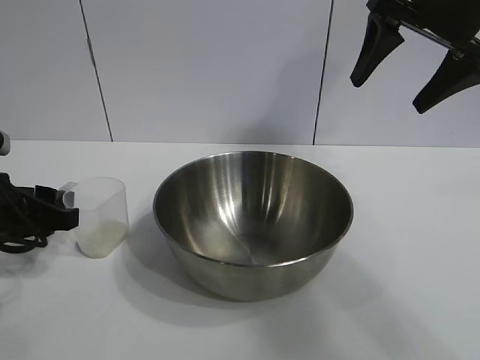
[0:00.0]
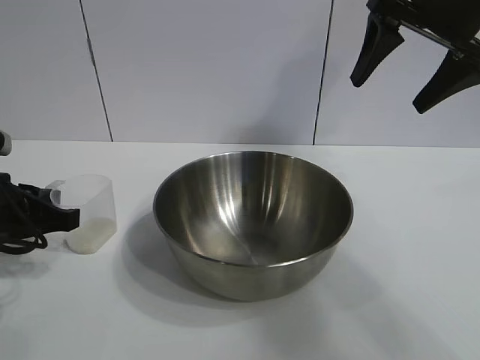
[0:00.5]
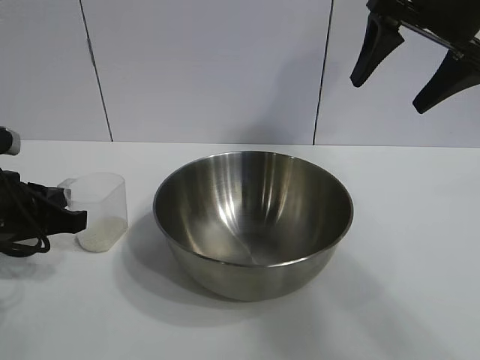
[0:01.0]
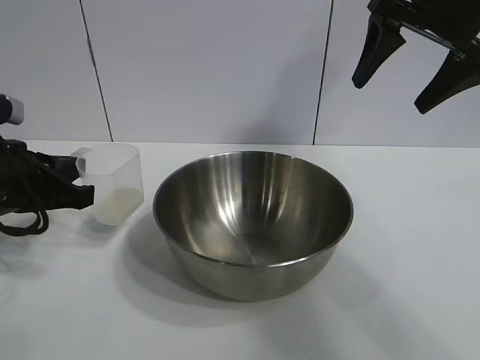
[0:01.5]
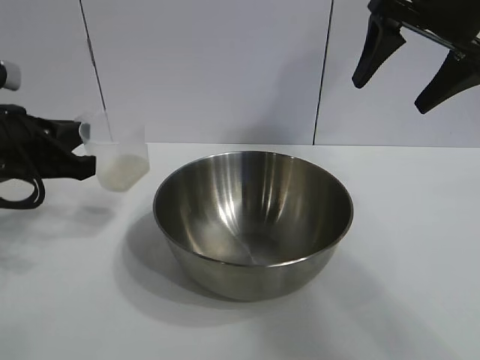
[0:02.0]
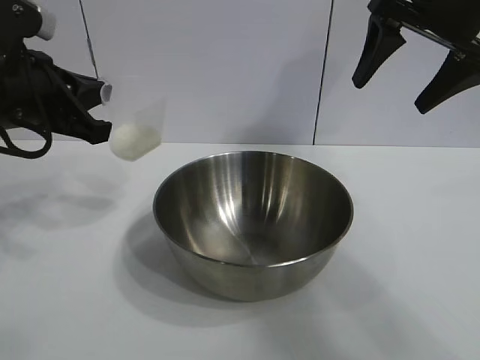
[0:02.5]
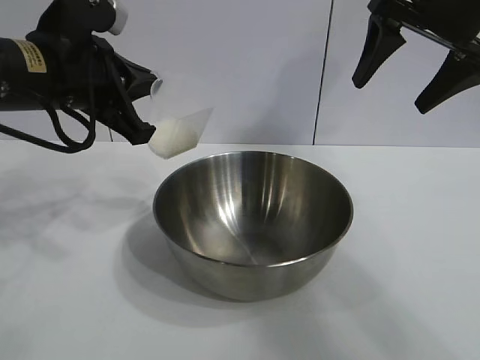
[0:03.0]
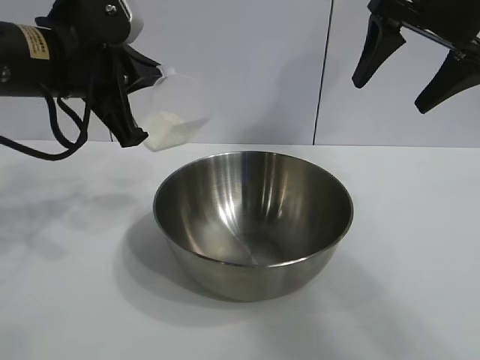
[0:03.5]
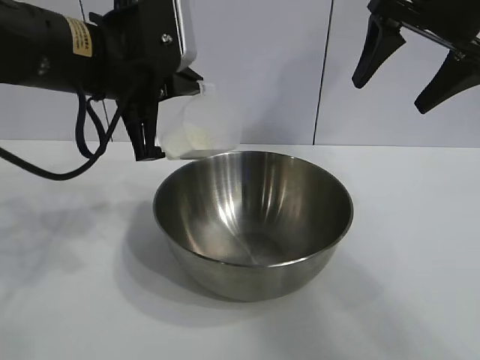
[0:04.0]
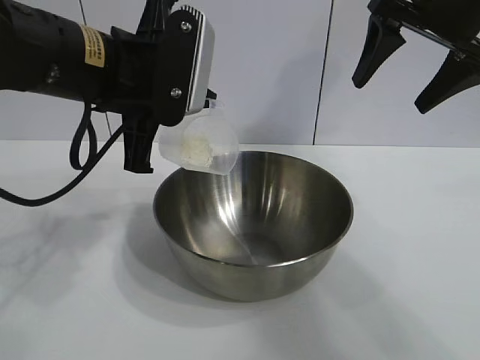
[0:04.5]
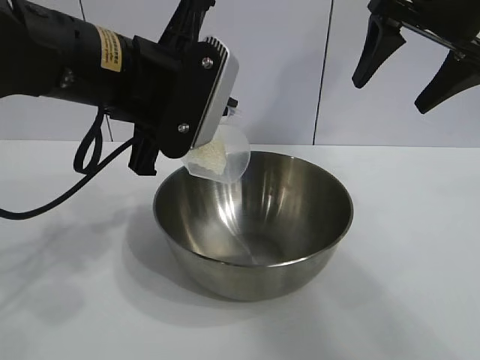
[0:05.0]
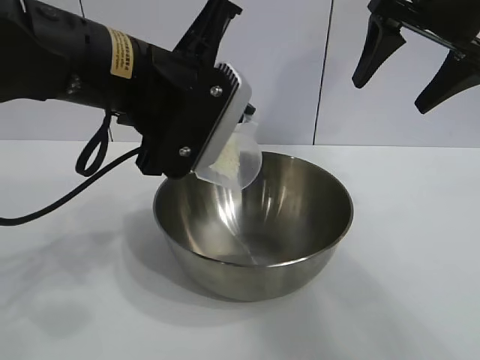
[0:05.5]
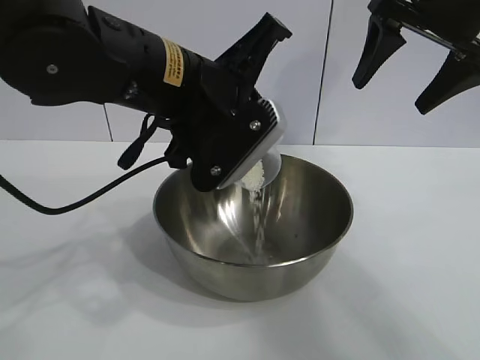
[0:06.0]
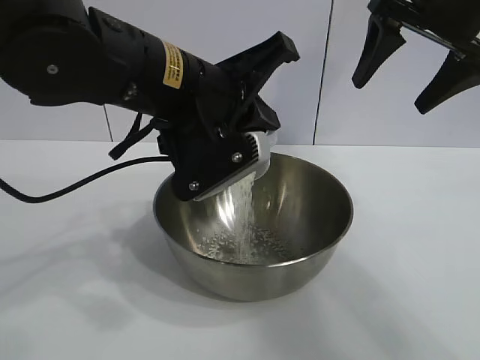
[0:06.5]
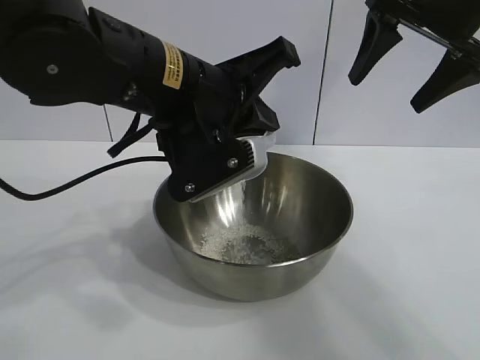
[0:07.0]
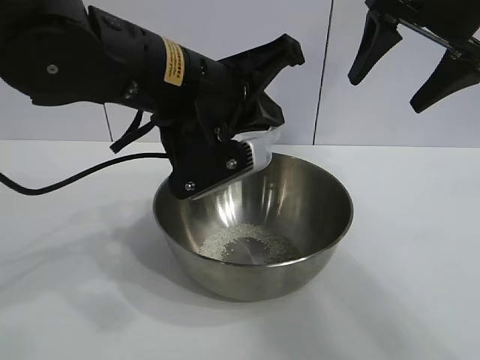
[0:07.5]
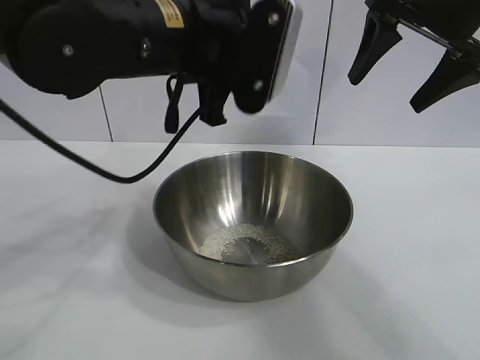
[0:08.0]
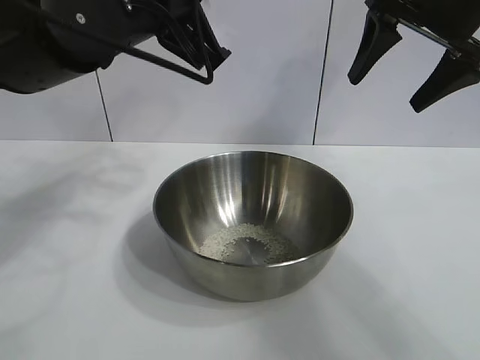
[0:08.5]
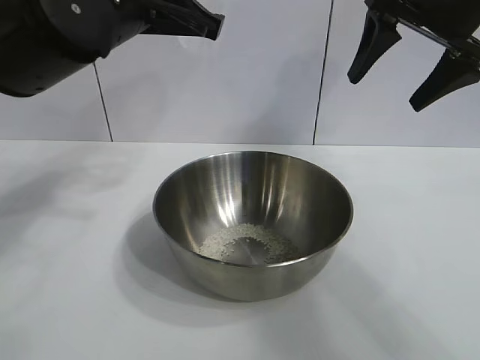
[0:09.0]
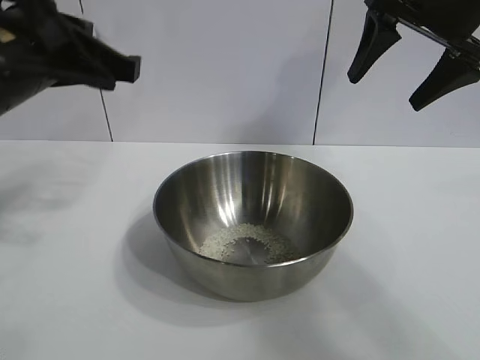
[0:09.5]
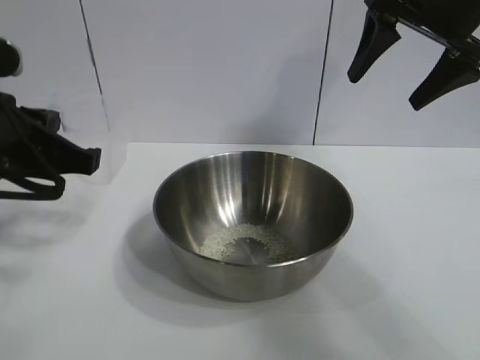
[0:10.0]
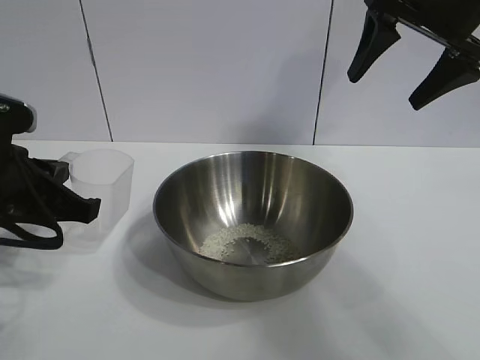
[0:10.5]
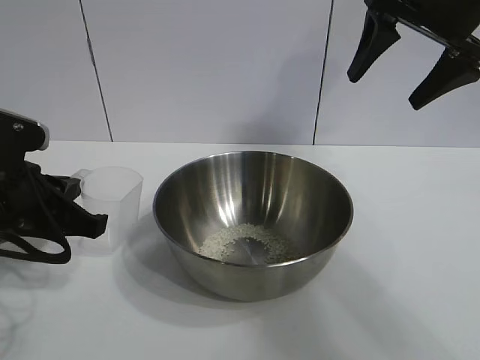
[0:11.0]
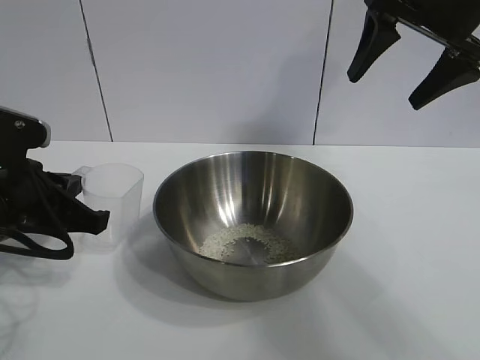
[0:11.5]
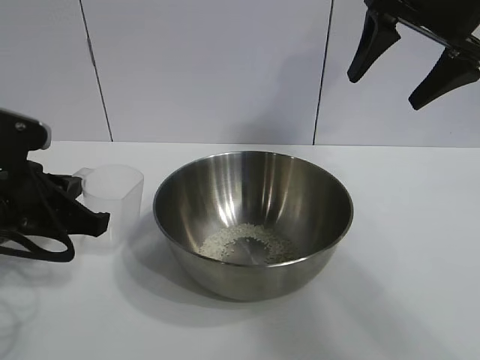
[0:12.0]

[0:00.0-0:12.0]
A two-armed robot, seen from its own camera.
Task of the whole recording: the right gripper grasp the rice container and place it in the center of the table, the left gripper grasp the rice scoop and pour the rice into the rice container.
Step, 0:01.0 to 0:07.0: Pour the rice from the cup into the bowl with the left gripper.

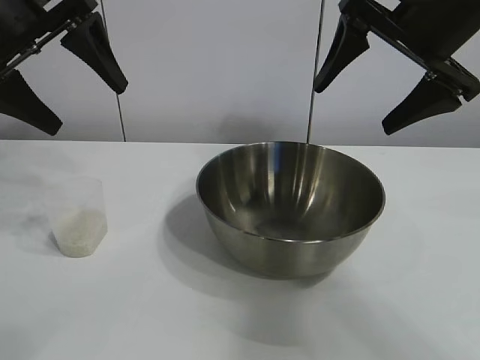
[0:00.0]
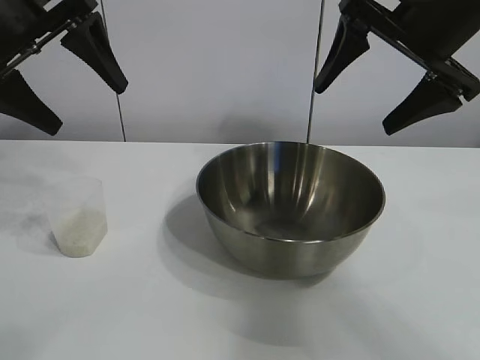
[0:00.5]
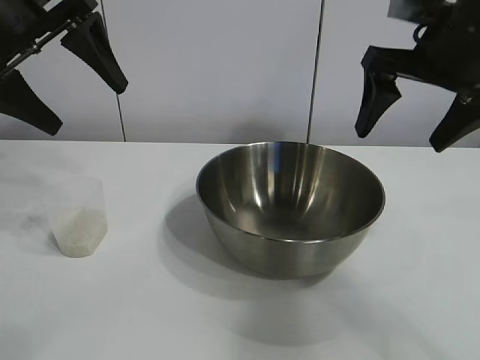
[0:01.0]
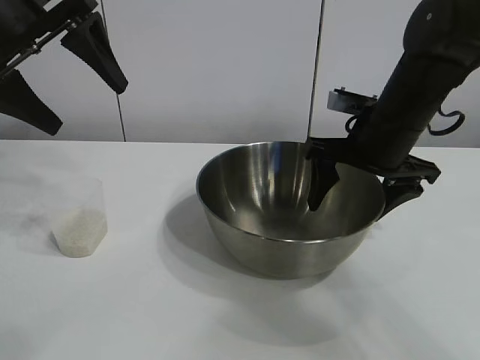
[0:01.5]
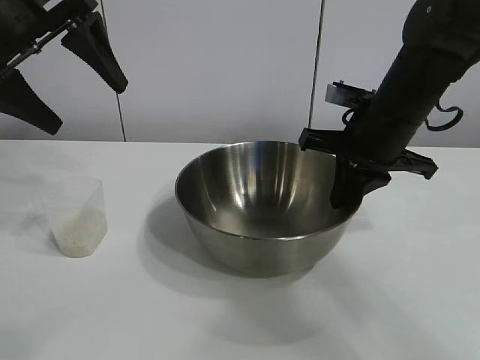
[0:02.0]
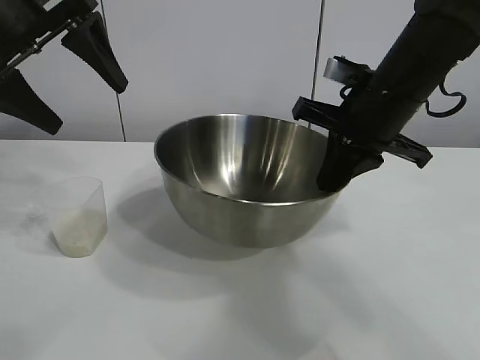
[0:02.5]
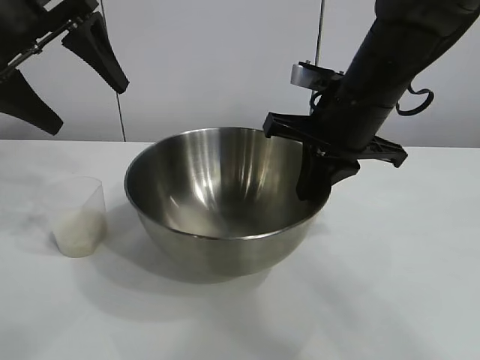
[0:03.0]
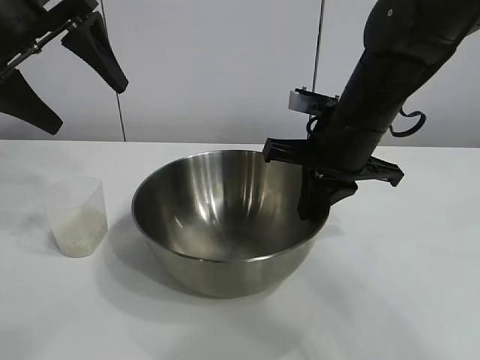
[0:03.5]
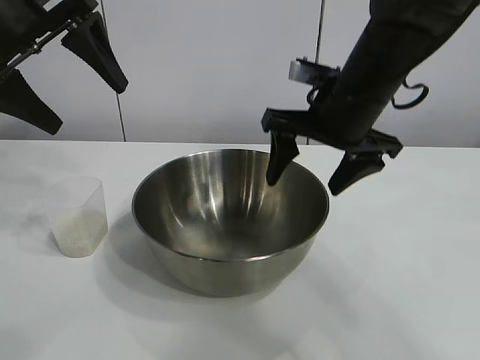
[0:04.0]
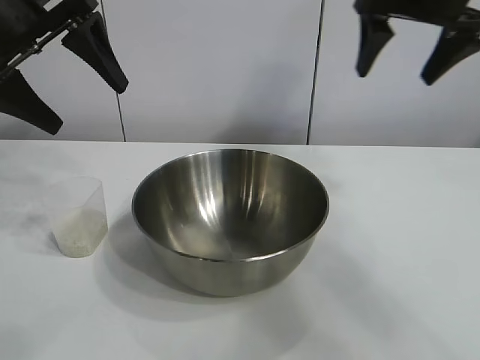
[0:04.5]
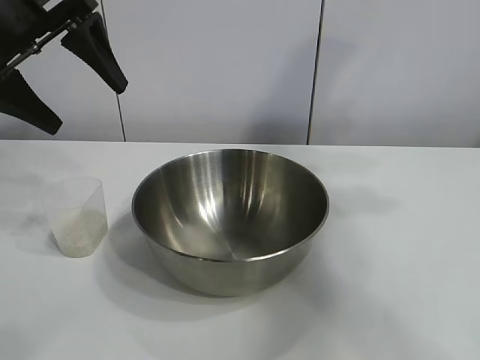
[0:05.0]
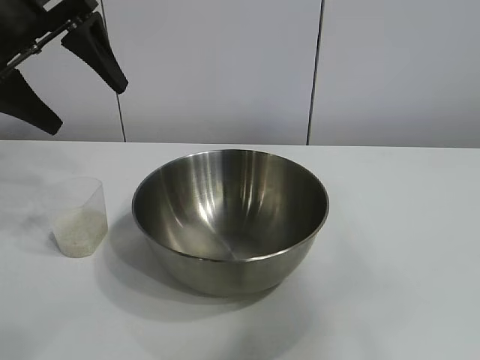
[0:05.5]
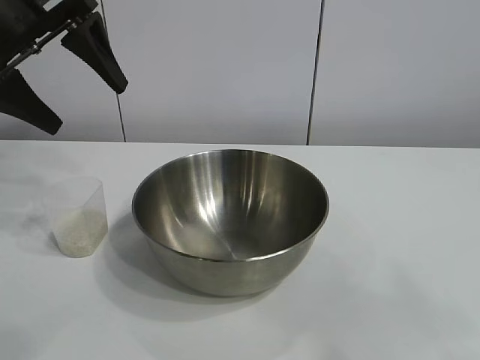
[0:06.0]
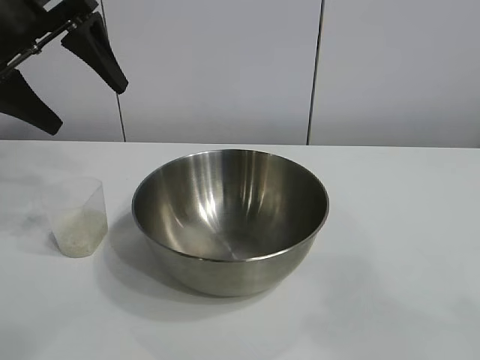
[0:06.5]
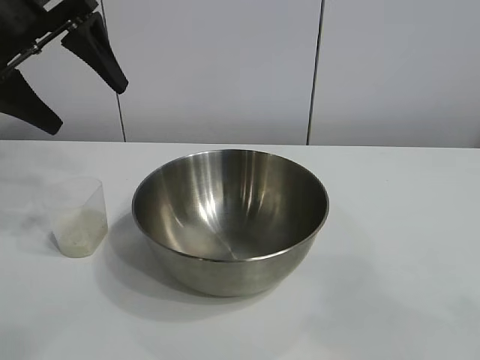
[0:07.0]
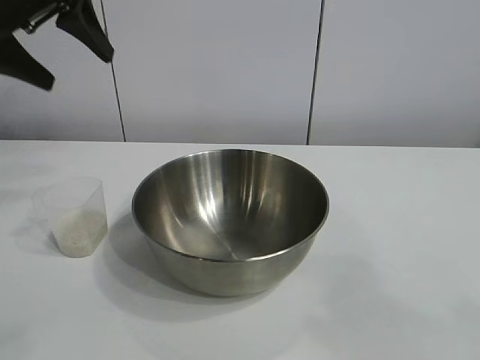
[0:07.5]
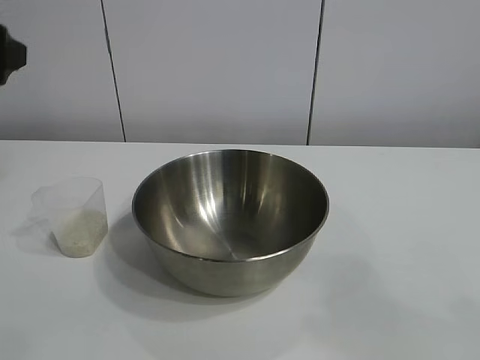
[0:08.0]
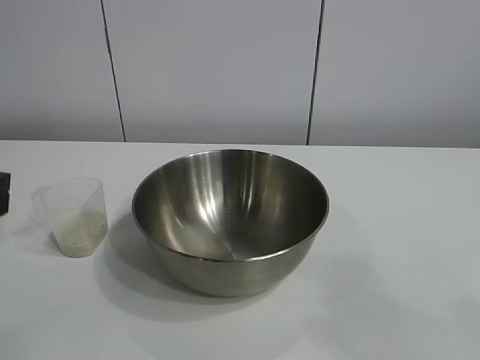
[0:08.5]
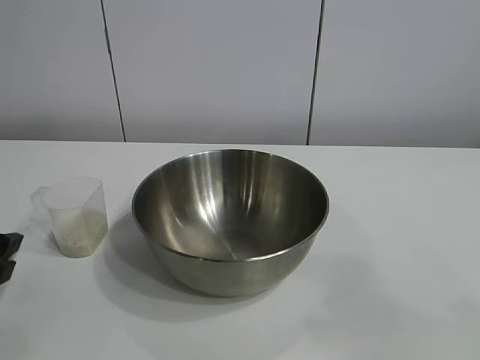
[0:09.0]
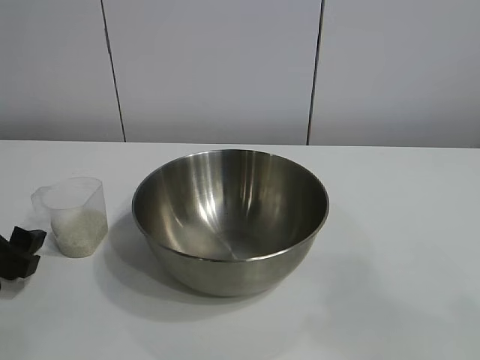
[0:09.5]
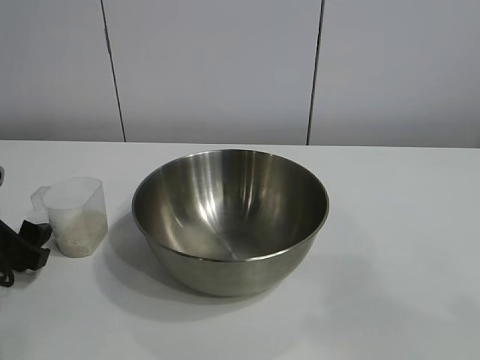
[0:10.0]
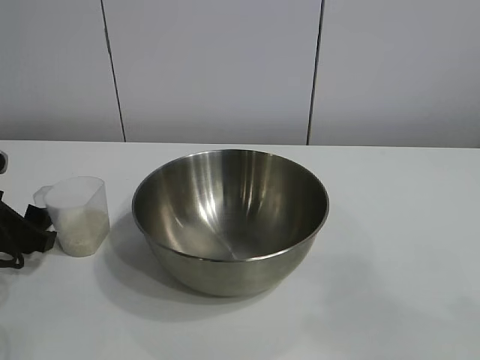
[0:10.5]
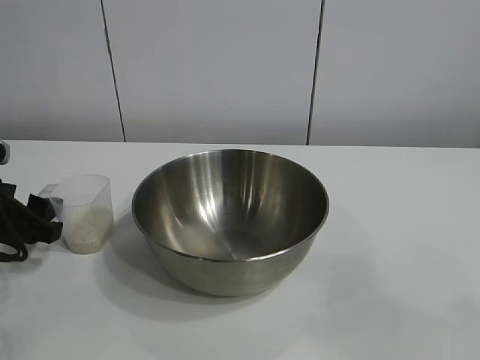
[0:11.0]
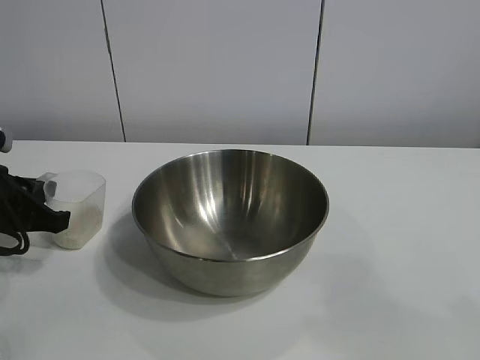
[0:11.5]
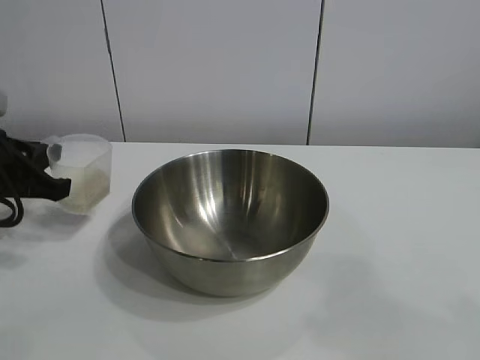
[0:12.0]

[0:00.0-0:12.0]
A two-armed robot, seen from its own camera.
Task of the whole recording: the right gripper grasp the rice container and place it in the center of the table, the left gripper grasp the rice scoop and pour the rice into the rice container.
Step, 0:01.0 to 0:03.5: Move the bowl in the center of view with right gripper.
Step, 0:04.0 to 0:11.0: Grasp the cup with rice in it with left gripper.

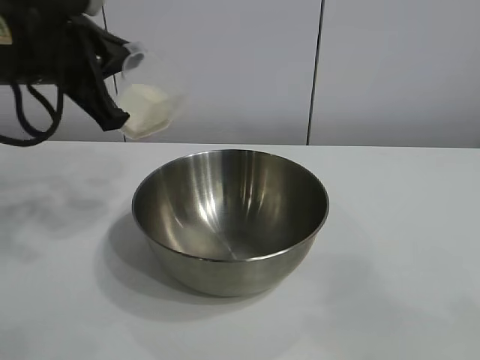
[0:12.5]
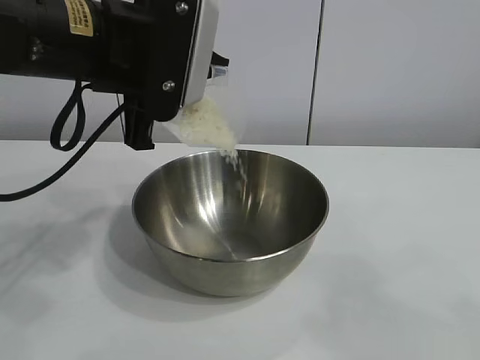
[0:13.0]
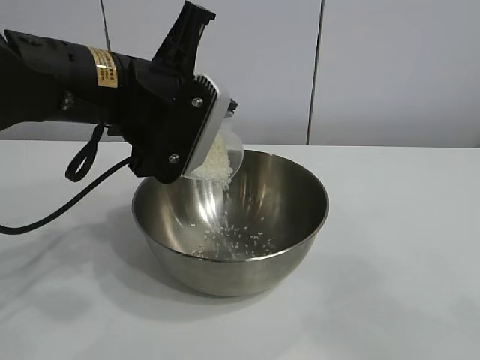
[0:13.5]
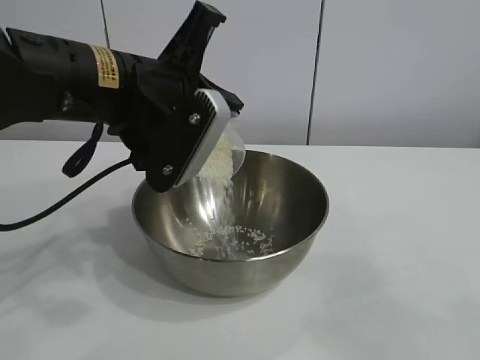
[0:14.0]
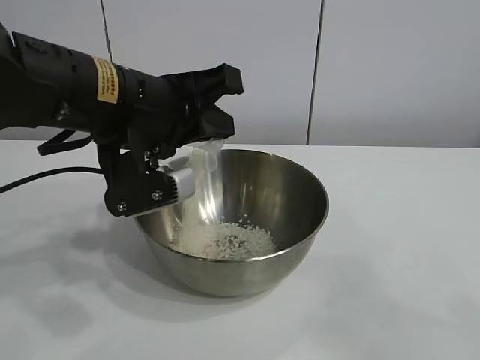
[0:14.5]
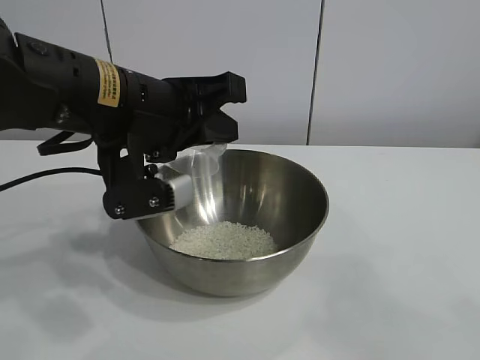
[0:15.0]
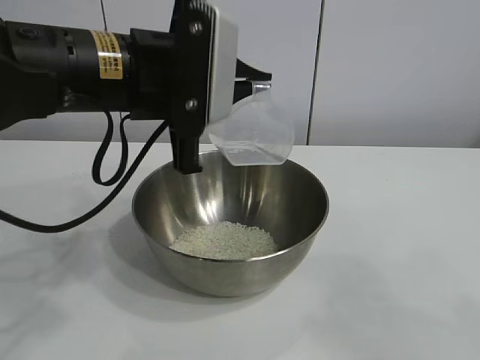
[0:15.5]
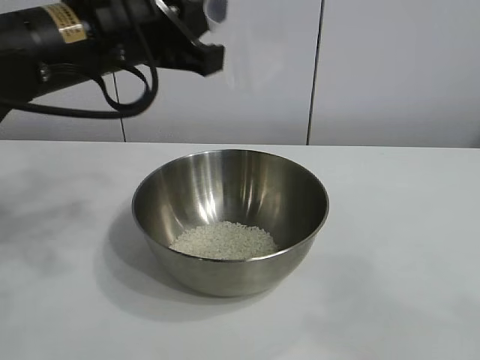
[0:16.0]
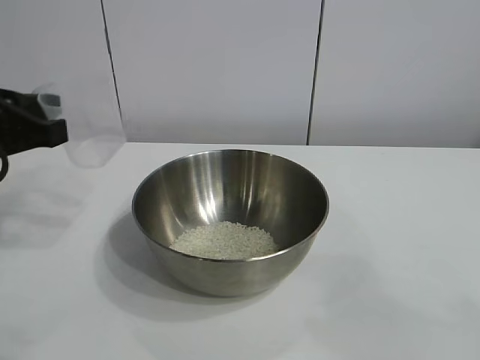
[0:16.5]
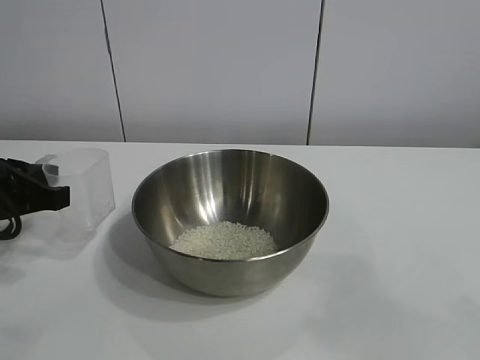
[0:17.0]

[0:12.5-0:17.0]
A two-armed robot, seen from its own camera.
Task of the whole recording: the right gripper grasp the rice container and place it in the center of the table, the left gripper grasp the rice scoop and pour the rice into the rice container.
Step, 0:12.5 to 0:15.0: Pour the rice from the cup into the bowl with the left gripper.
